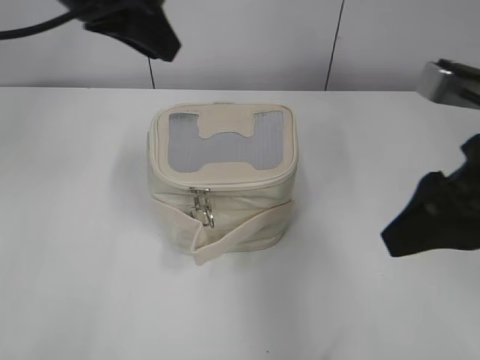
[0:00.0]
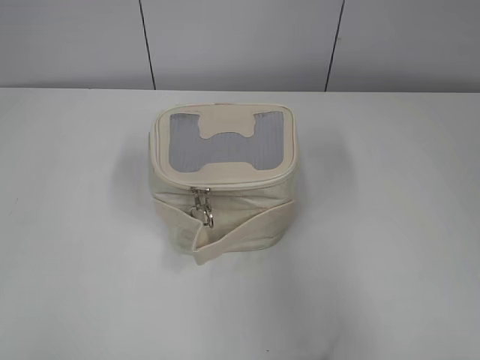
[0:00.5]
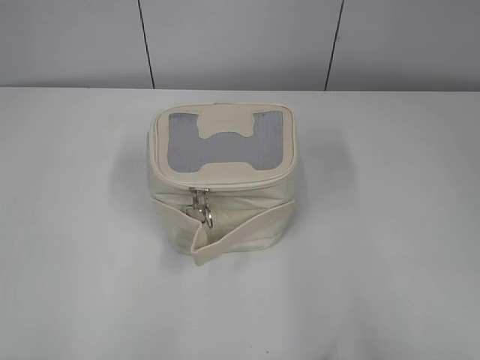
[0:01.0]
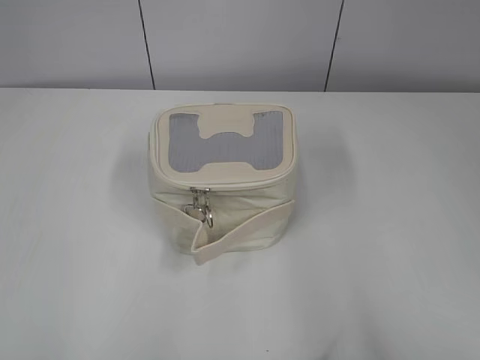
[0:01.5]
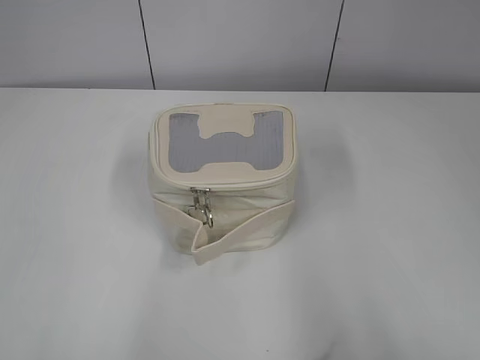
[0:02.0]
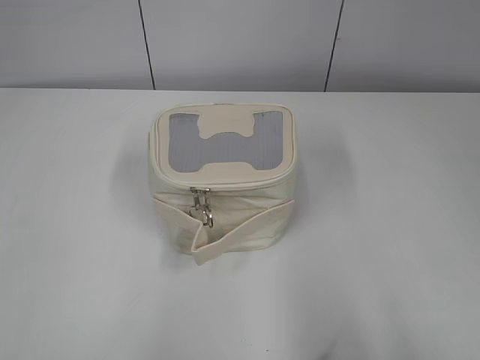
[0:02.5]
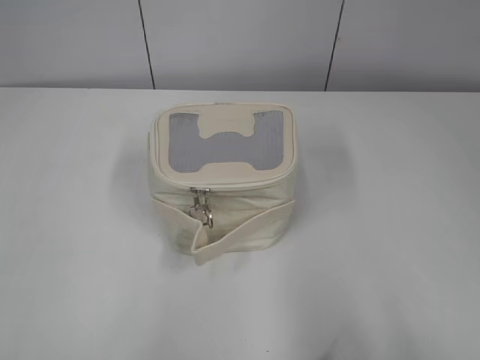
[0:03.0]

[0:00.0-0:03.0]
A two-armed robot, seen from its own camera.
0:00.0 to 0:01.5: The right gripper is displaced backward and to the right by some 25 cm; the left gripper heads backward and to the left, covering about 40 cm, and opens its fingers.
